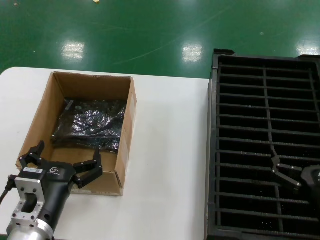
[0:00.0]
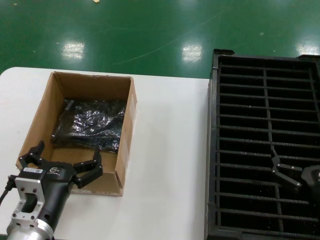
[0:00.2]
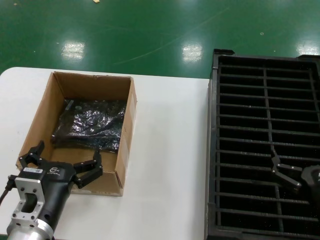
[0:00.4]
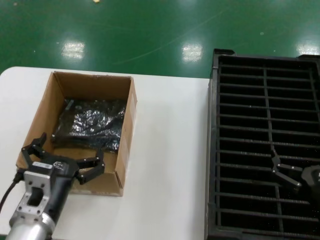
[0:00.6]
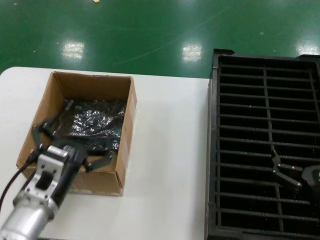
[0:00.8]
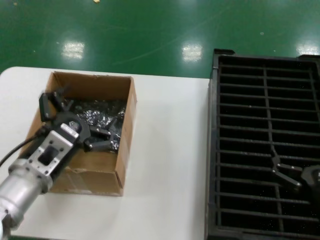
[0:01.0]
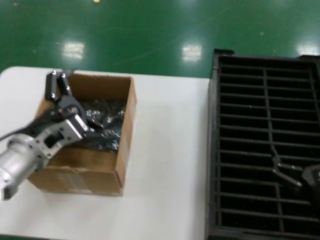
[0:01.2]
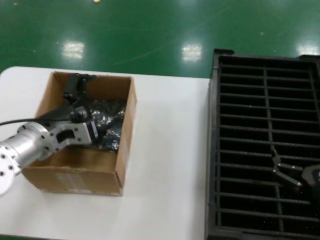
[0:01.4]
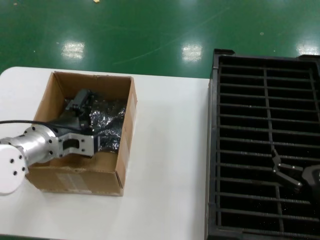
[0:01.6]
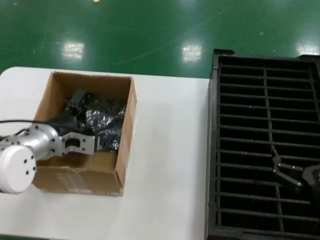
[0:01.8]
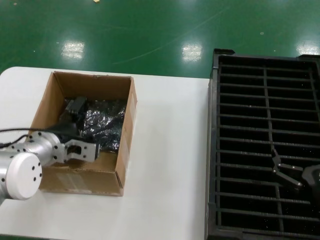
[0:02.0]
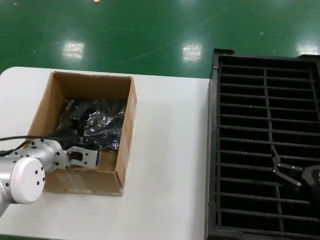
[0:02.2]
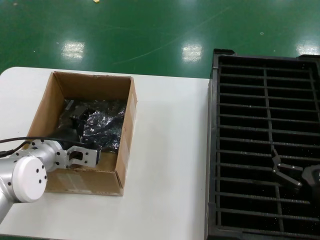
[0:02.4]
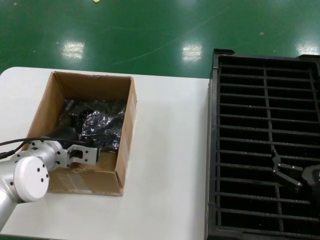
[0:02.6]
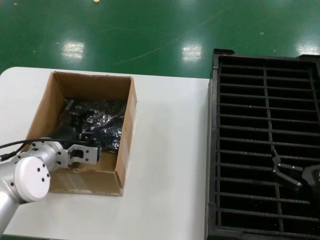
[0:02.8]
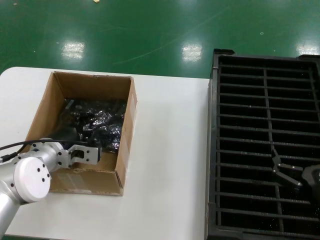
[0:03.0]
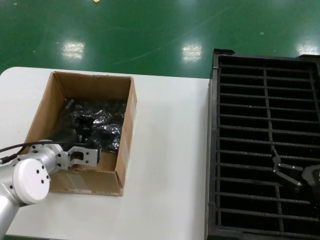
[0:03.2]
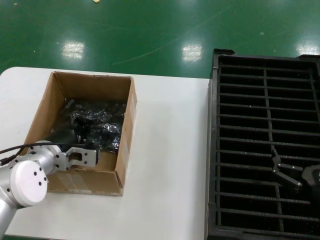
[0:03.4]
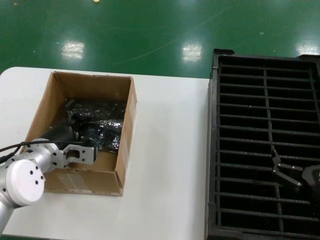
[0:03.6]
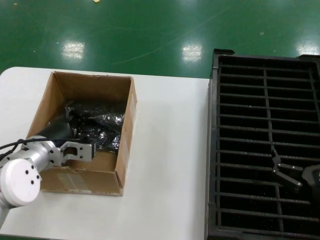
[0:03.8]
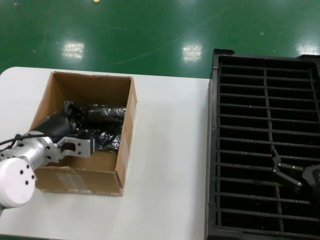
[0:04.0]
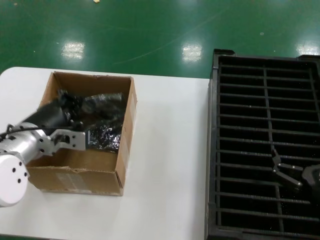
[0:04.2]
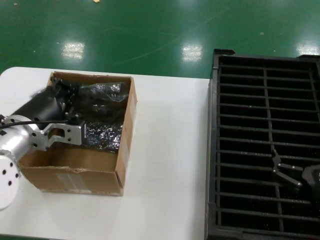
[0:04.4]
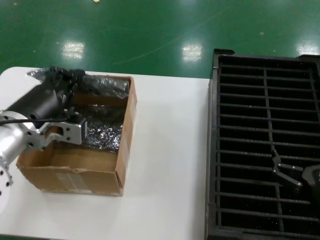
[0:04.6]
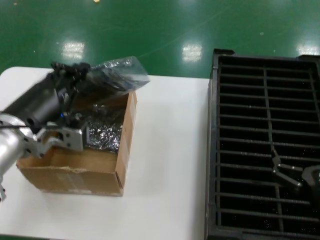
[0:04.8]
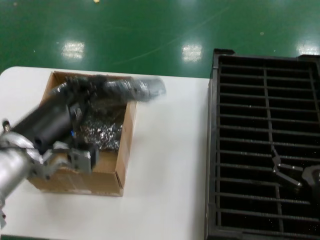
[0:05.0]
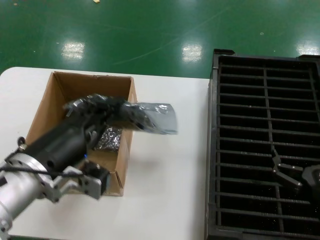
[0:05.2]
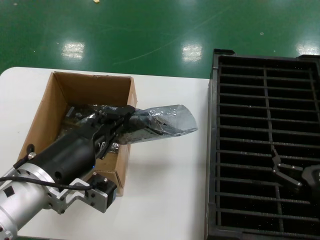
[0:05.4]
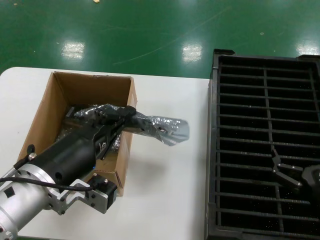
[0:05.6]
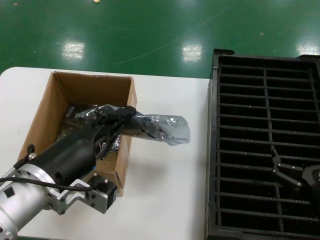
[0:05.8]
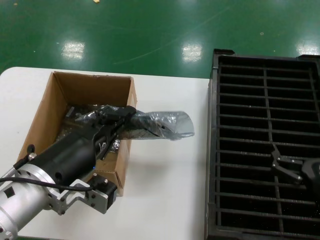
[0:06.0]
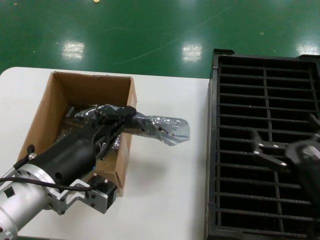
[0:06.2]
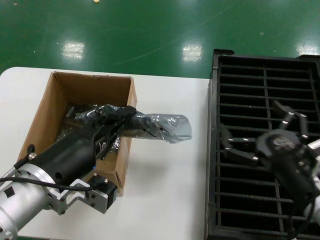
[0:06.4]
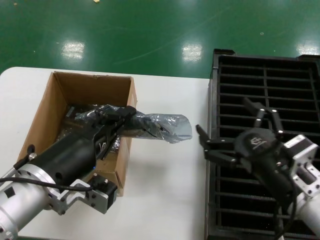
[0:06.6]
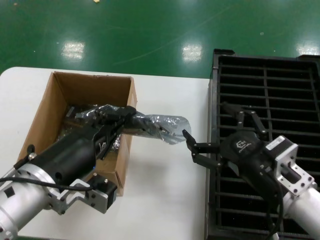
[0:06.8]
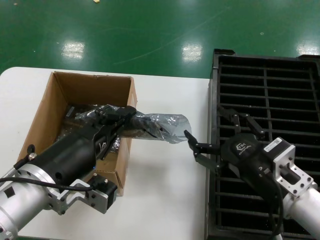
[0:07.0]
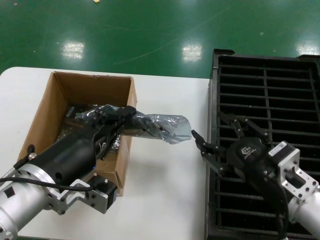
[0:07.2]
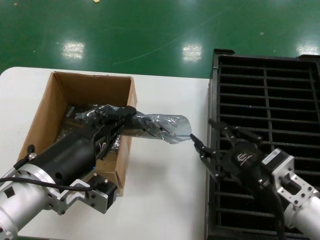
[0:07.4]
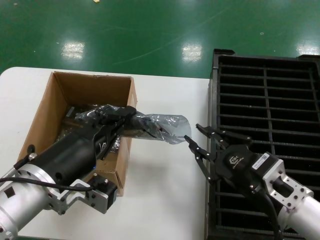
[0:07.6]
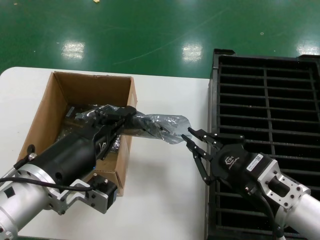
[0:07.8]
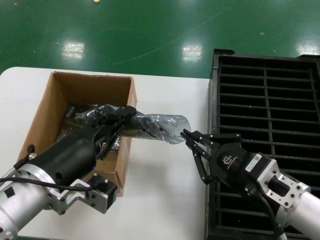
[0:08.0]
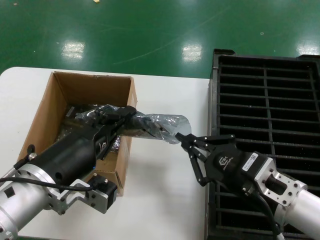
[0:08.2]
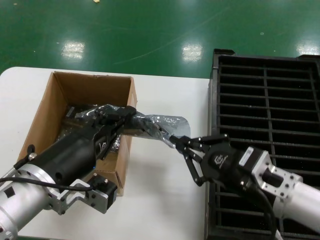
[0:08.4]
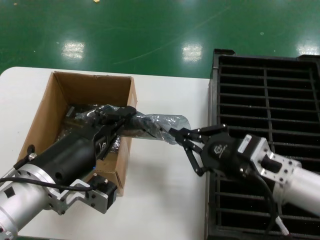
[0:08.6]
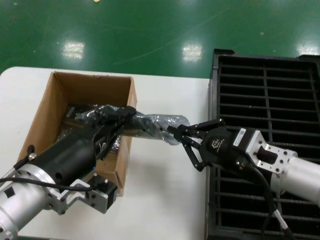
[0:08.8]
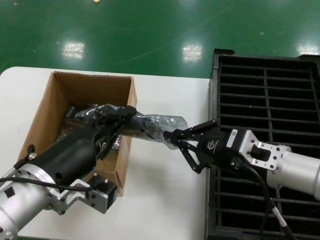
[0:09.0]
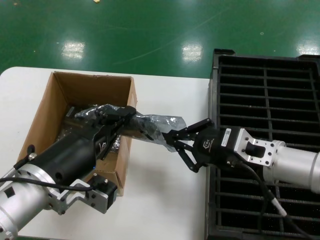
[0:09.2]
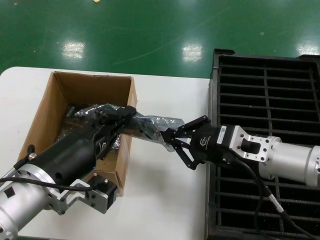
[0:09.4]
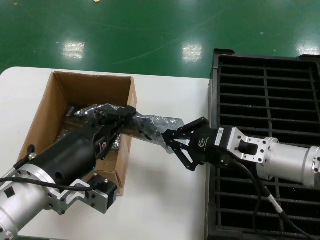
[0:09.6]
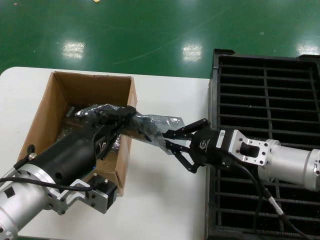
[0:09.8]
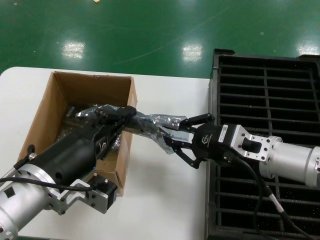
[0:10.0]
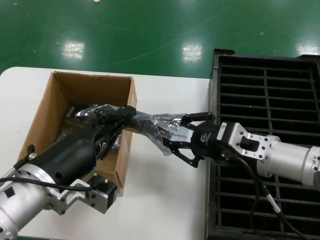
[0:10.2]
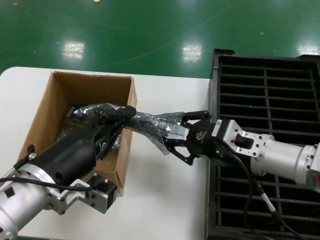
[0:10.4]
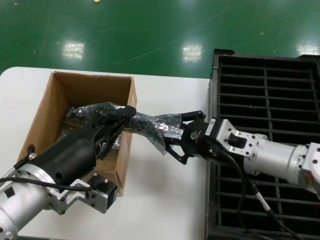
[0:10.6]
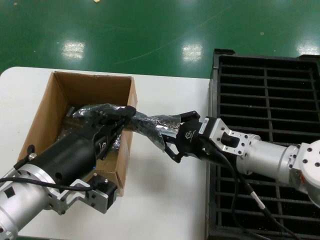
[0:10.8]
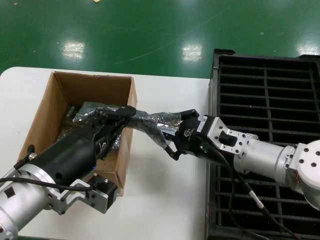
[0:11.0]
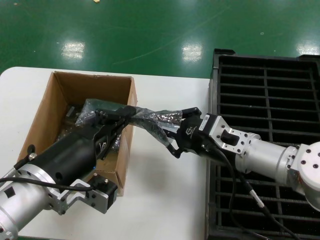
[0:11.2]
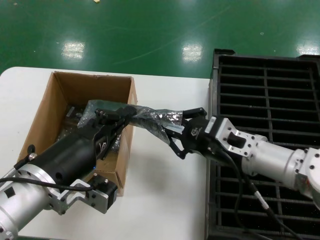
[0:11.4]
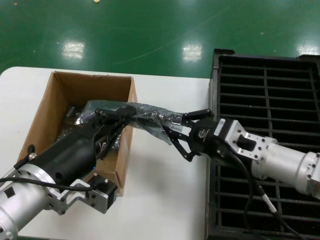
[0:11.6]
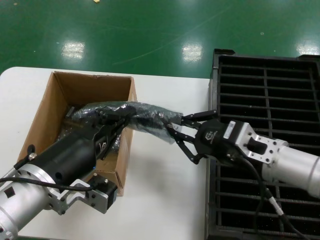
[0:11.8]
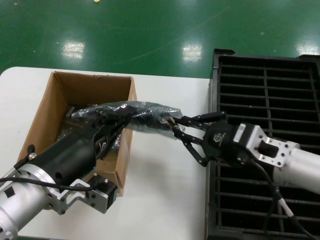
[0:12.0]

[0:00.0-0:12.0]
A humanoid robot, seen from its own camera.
Task of the whole recording: take out graphics card from box remove packaging put into black container.
Step, 0:00.0 to 0:03.6: Grasp the bag.
Step, 0:03.8 to 0:05.6: Lift the bag.
0:00.0 to 0:01.6: The left hand moves forward and upward, about 20 cm.
0:01.6 to 0:03.0: The left hand is displaced downward by about 5 cm.
0:03.0 to 0:04.4: The left hand is displaced upward and backward by some 10 cm.
0:04.4 to 0:06.0: The left hand heads backward and to the right, covering some 15 cm.
0:06.0 to 0:07.6: The right hand shifts roughly 5 cm to the left.
0:07.6 to 0:09.0: The right hand goes approximately 5 cm forward.
0:09.0 to 0:10.4: There are only small adjustments of the hands.
0:10.4 to 0:12.0: The hands stay close to where they were, moving slightly.

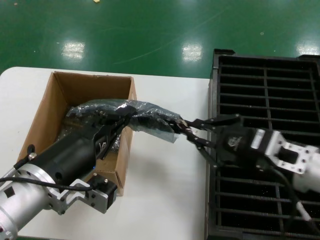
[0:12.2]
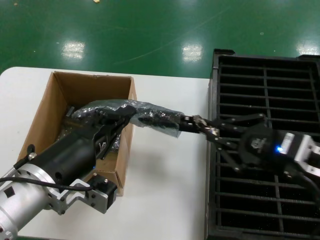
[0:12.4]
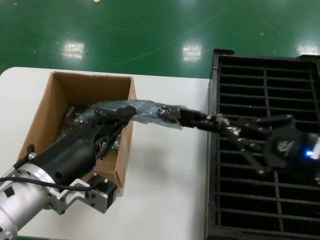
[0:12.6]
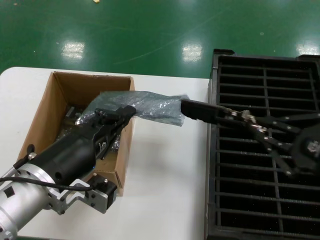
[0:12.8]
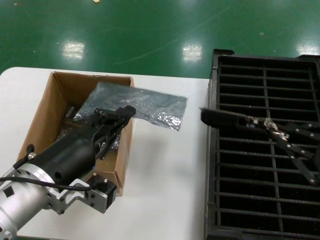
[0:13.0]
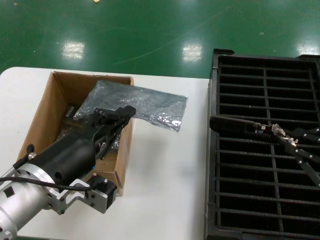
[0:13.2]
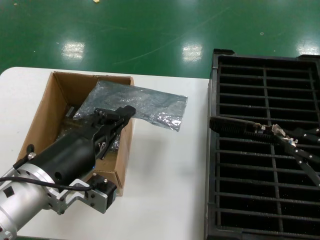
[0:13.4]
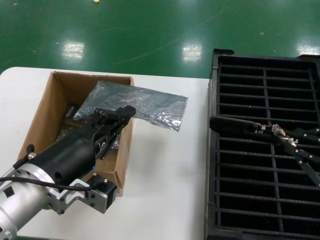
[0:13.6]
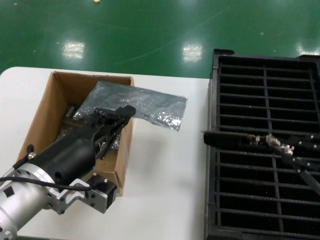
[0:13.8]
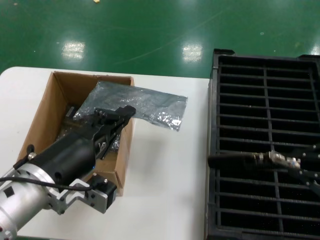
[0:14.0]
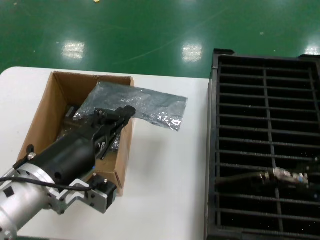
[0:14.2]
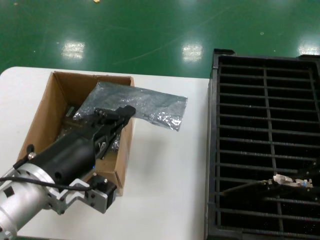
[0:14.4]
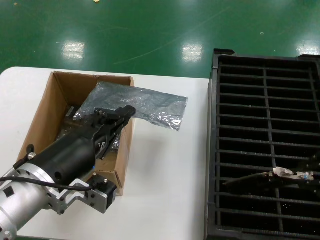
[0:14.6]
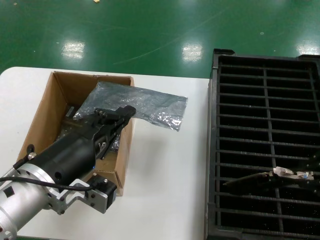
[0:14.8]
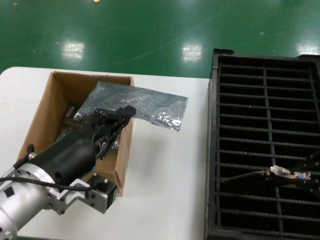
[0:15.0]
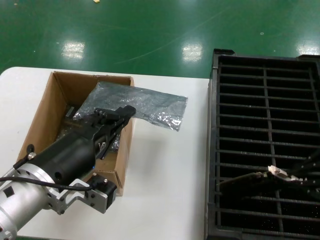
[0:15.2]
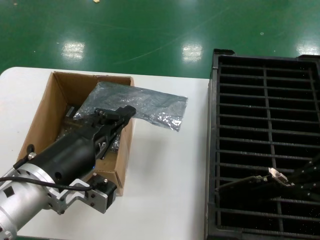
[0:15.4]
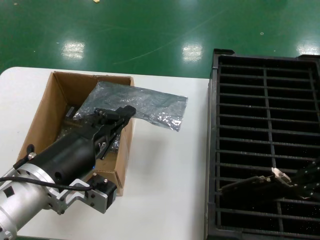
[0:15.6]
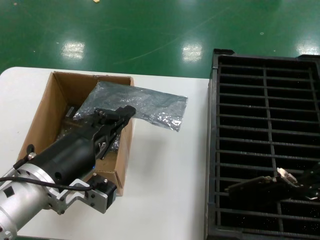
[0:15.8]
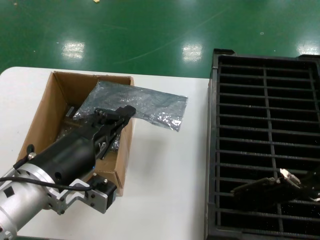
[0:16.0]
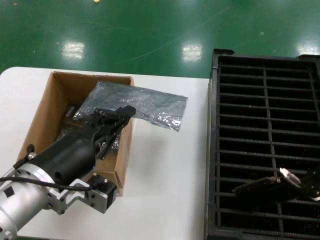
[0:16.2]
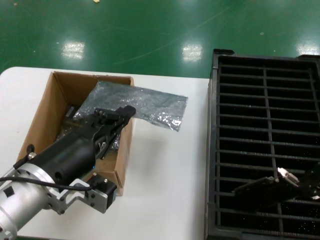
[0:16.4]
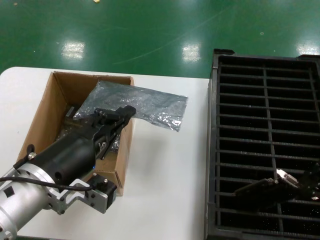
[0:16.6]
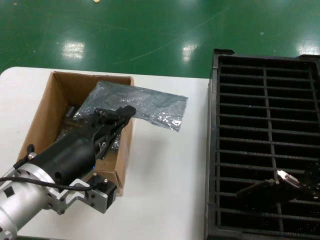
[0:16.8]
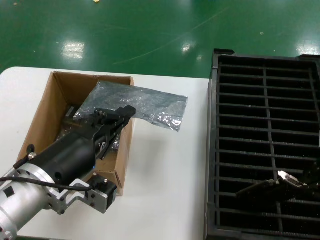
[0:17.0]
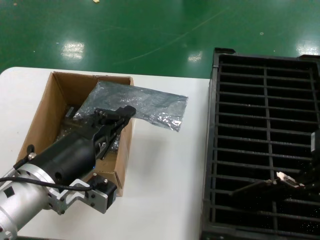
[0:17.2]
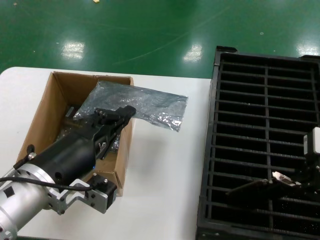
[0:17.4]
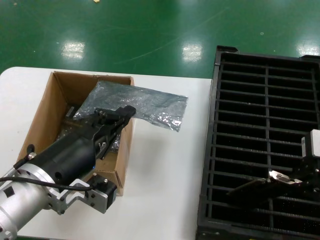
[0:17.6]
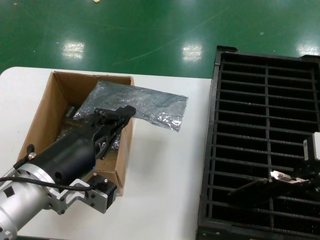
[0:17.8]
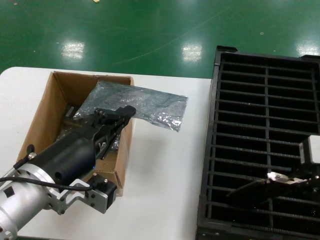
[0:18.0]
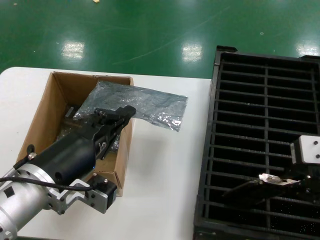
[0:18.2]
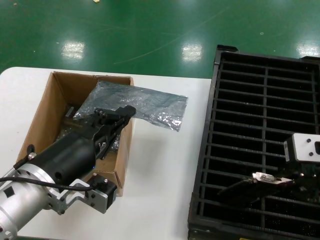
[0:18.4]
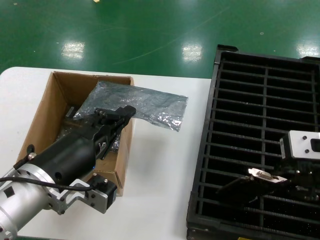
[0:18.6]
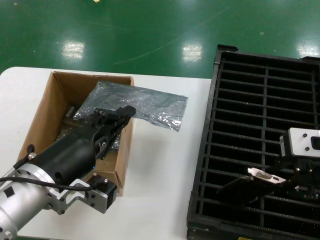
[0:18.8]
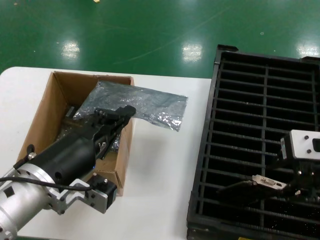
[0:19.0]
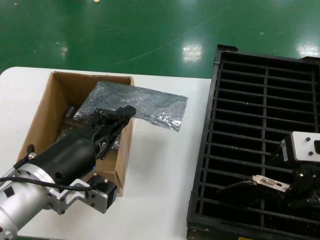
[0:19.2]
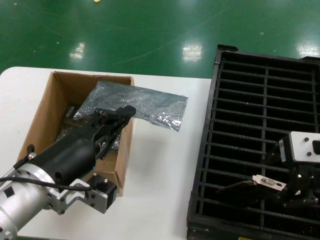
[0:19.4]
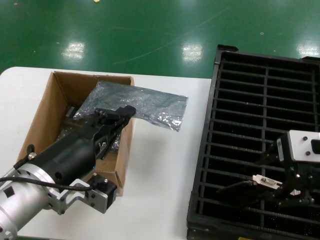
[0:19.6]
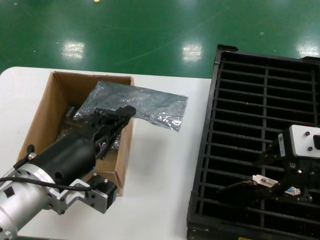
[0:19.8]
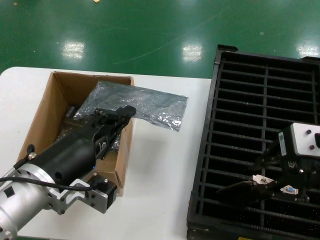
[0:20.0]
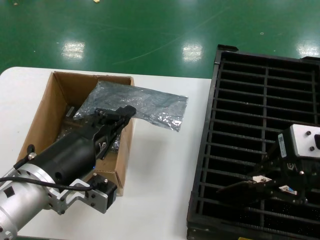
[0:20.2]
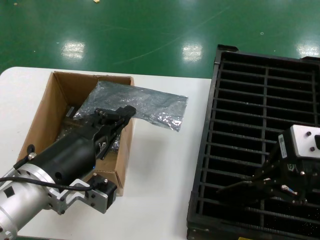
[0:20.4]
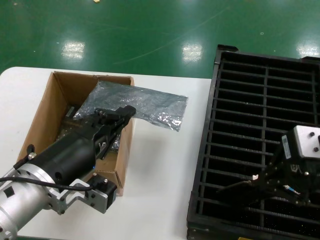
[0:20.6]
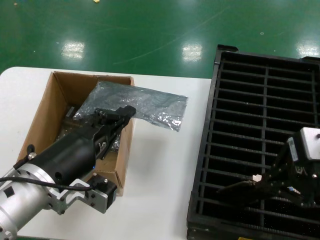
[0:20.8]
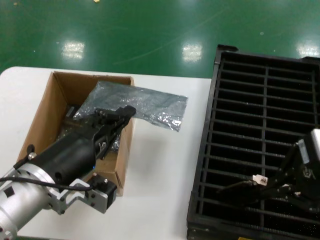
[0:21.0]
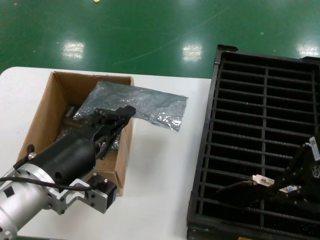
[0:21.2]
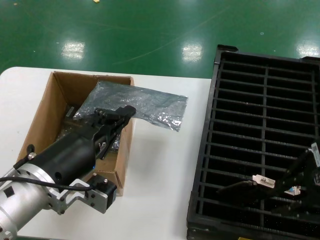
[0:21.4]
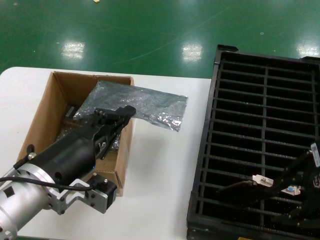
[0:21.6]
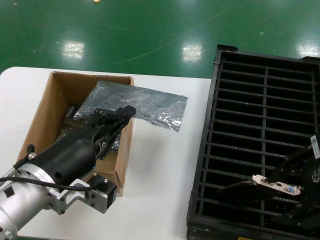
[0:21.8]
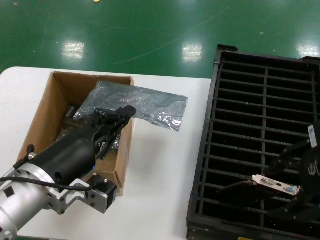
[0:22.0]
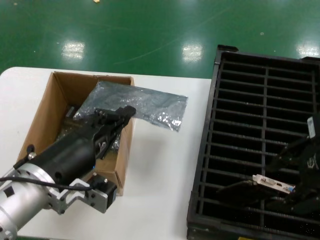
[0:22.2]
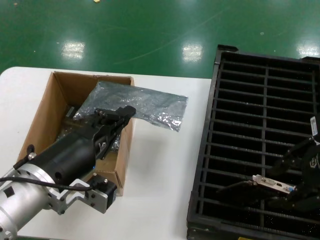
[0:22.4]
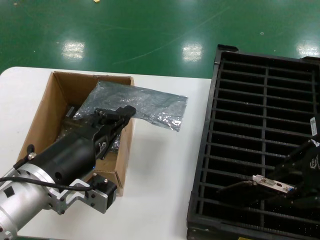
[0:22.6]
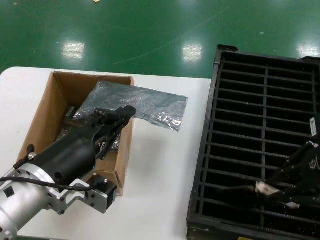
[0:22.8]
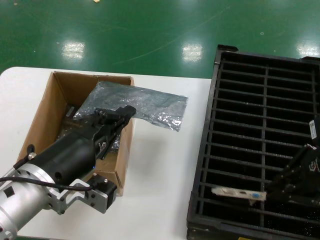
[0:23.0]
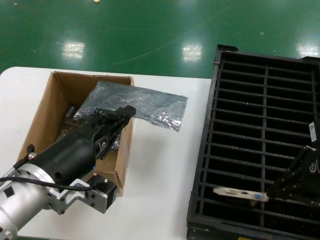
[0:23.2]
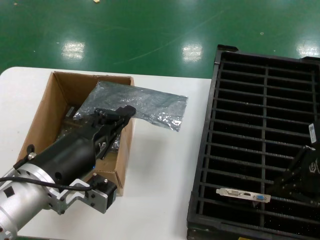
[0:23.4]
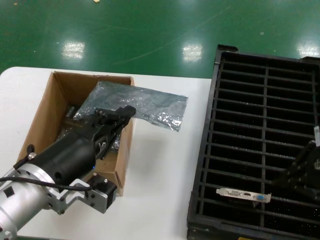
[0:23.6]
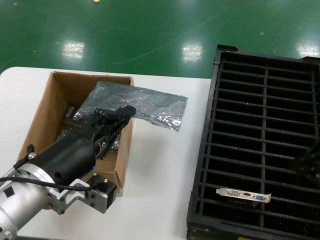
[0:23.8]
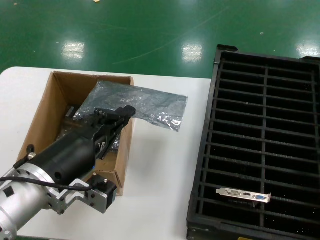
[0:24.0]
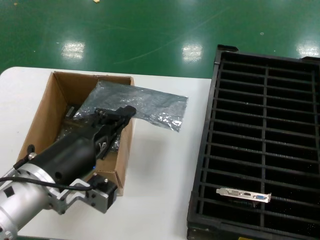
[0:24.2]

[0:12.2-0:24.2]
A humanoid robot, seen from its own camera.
Task of the whole recording: take out graphics card from box remove packaging put into black container.
Step, 0:13.2 to 0:23.4: Place the hard disk in the hard disk enclosure.
0:12.2 to 0:13.8: The right hand heads to the right, backward and upward, covering some 20 cm.
0:13.8 to 0:15.2: The right hand is displaced forward and upward by some 10 cm.
0:15.2 to 0:16.6: There are only small adjustments of the hands.
0:16.6 to 0:18.2: The right hand is displaced to the left by about 5 cm.
0:18.2 to 0:21.2: The hands make only small movements.
0:21.2 to 0:22.6: The right hand travels forward by about 5 cm.
0:22.6 to 0:24.2: The right hand heads downward and to the right, covering some 10 cm.
